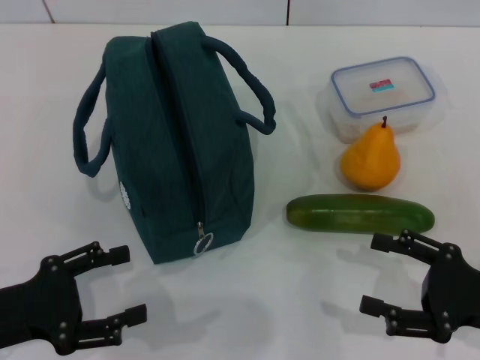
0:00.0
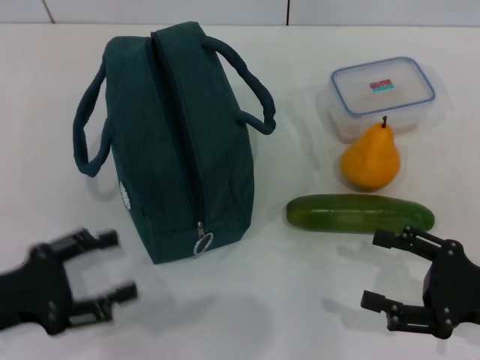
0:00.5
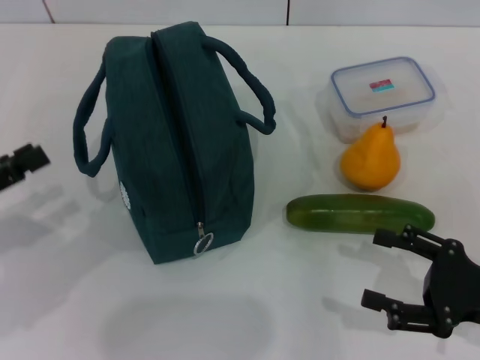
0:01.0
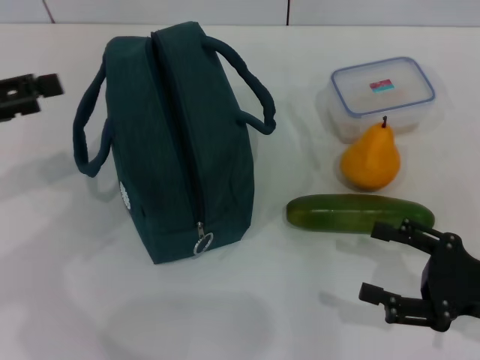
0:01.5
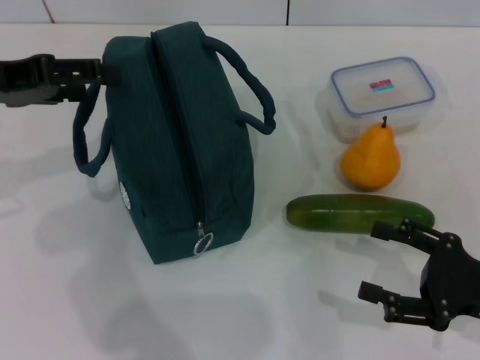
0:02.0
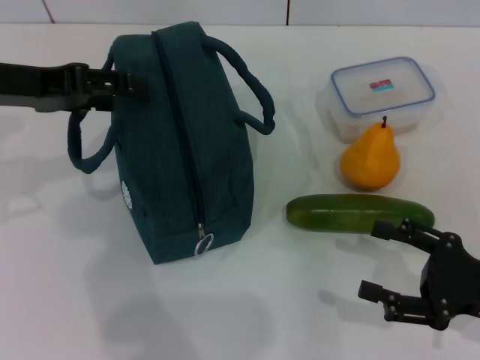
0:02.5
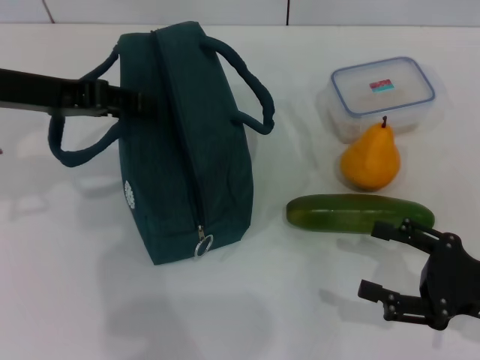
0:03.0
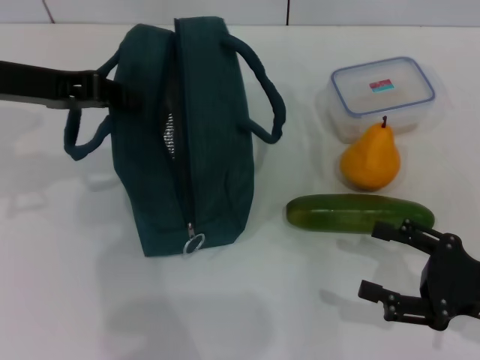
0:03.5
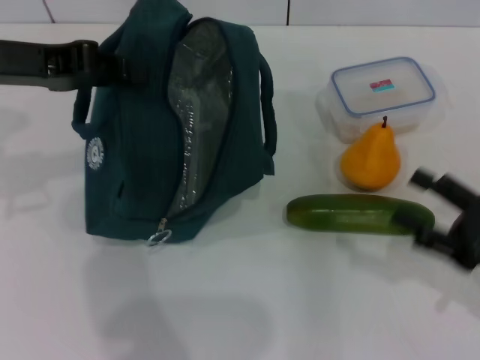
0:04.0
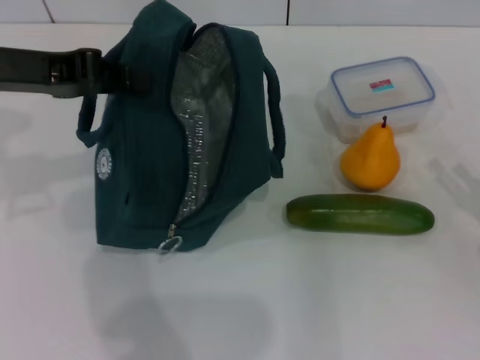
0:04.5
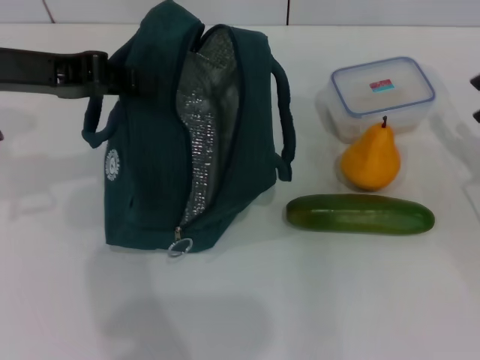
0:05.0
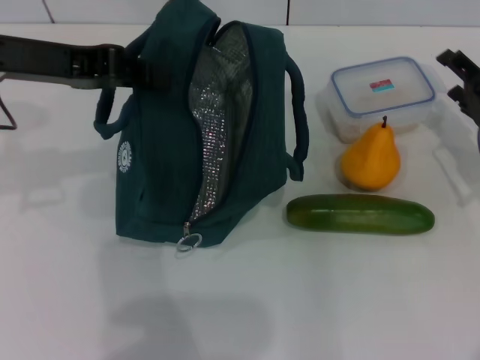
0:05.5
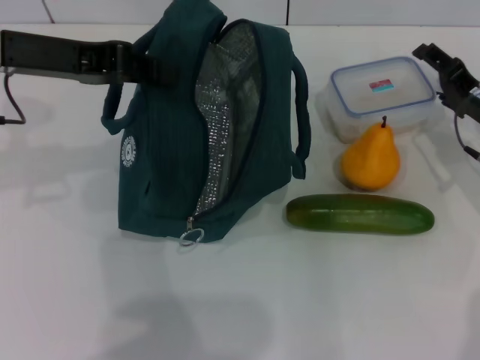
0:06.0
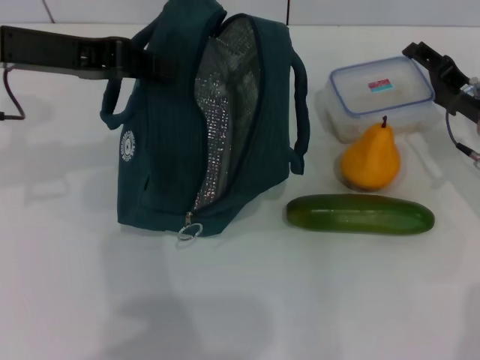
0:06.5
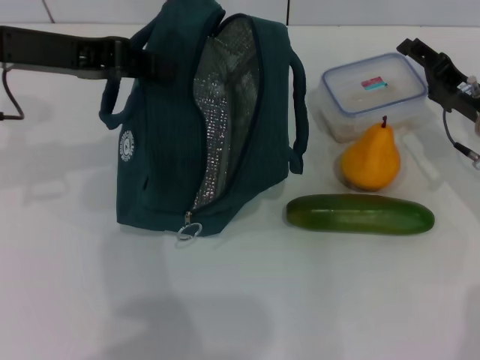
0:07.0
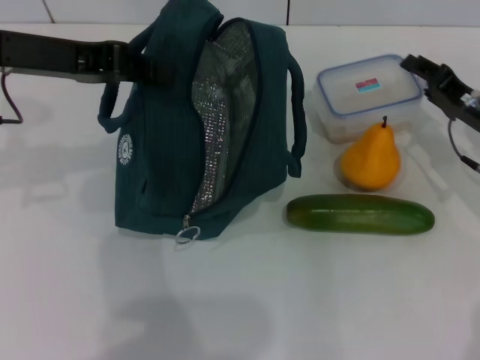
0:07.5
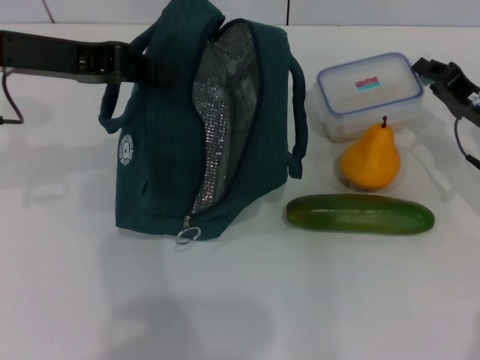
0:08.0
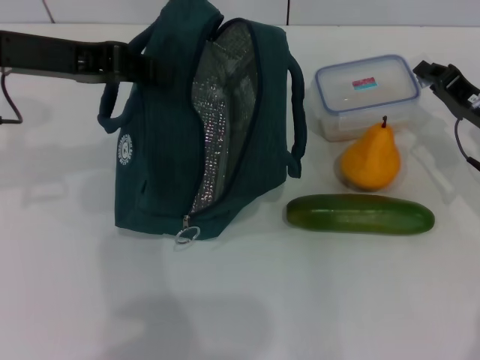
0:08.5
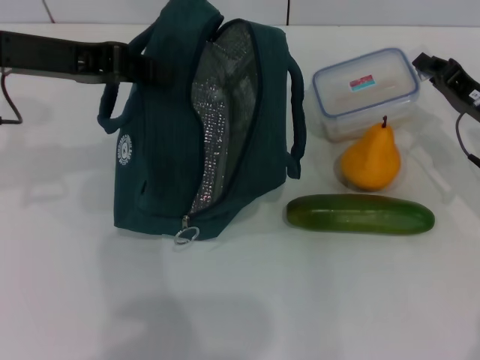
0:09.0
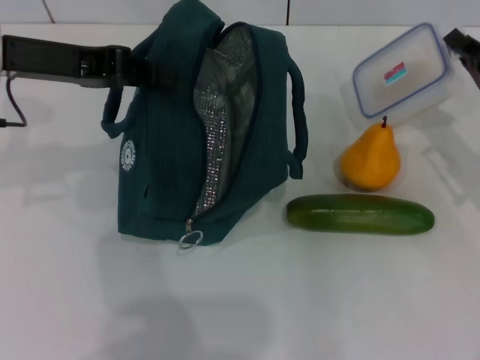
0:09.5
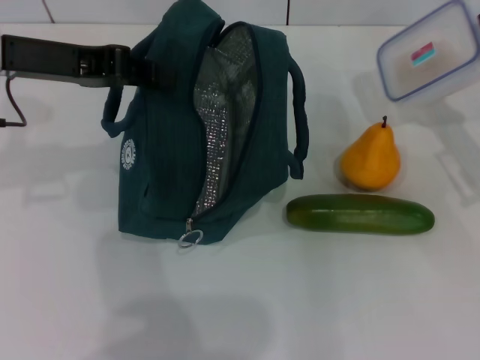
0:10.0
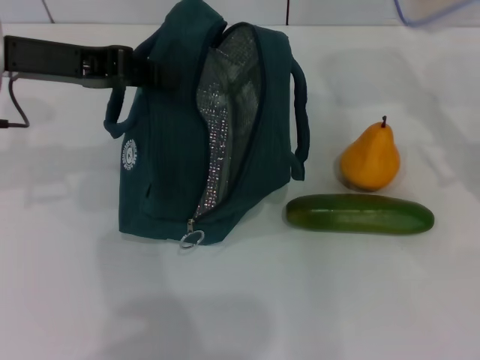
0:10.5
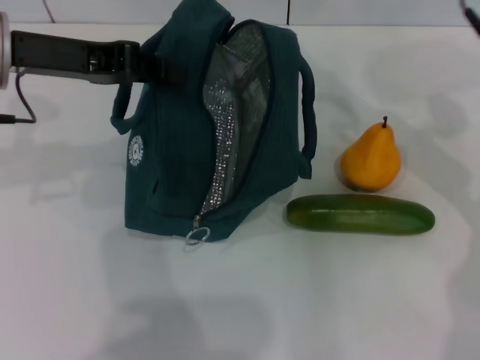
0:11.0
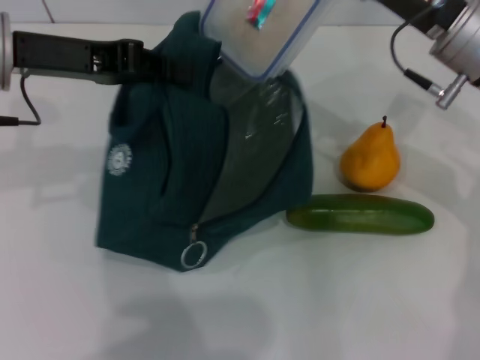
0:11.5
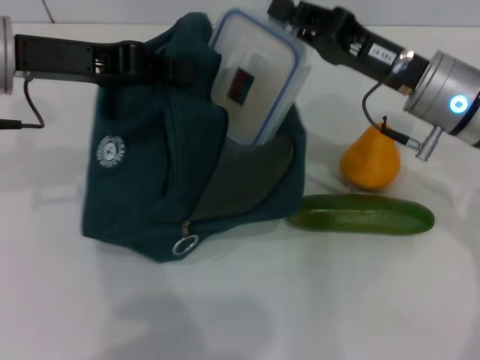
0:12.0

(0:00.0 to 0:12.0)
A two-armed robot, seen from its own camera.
Step, 0:00.0 - 0:03.0: Hold the lunch bag with your left hand.
Step, 0:03.5 - 0:08.5: Pick up the lunch box with your right hand.
0:00.0 - 0:02.0: The left gripper moves upward and forward, about 20 cm.
0:02.0 - 0:04.0: The left gripper closes up.
0:04.0 - 0:06.0: The right gripper goes some 15 cm forward.
0:06.0 - 0:08.0: The right gripper closes its fingers.
0:10.0 - 0:12.0: The right gripper shifts roughly 15 cm to the left and upward.

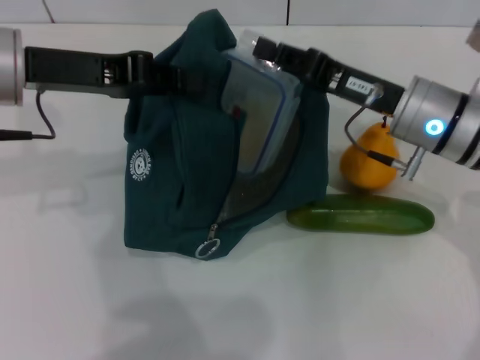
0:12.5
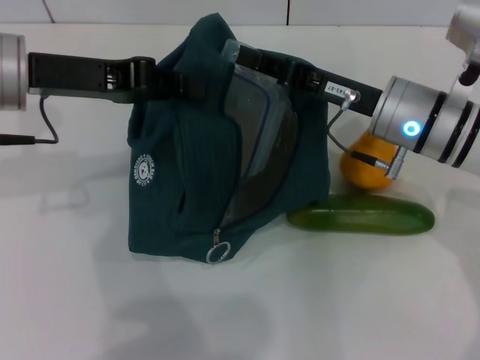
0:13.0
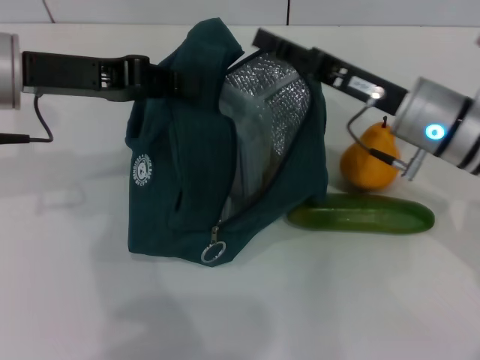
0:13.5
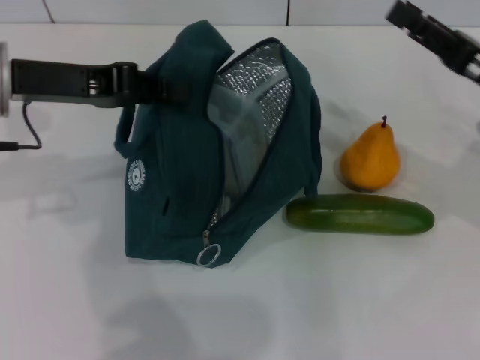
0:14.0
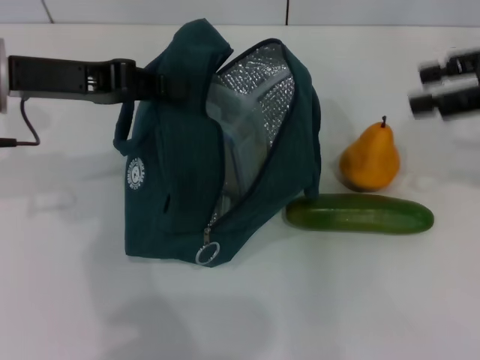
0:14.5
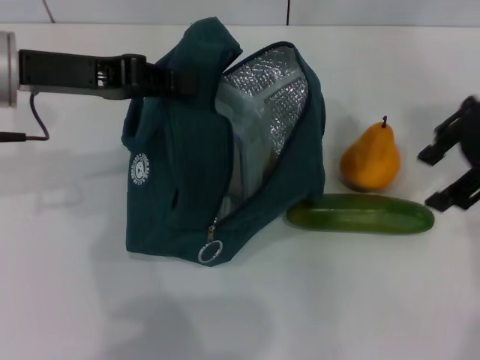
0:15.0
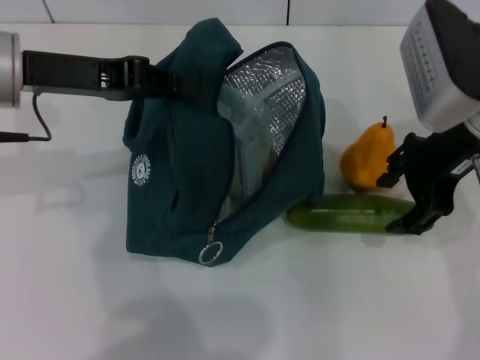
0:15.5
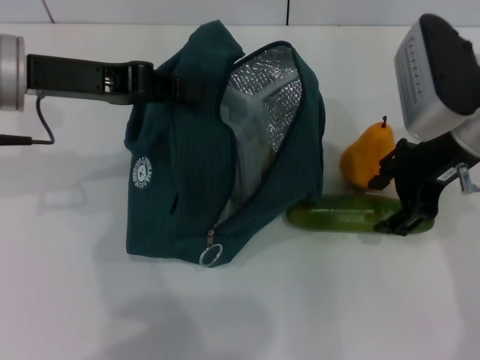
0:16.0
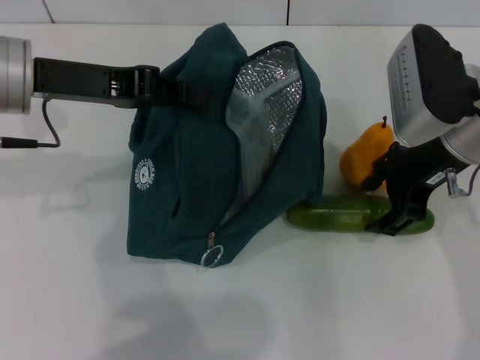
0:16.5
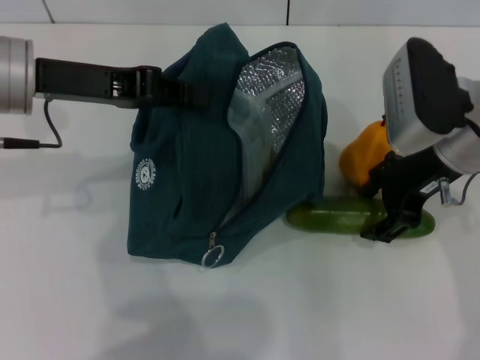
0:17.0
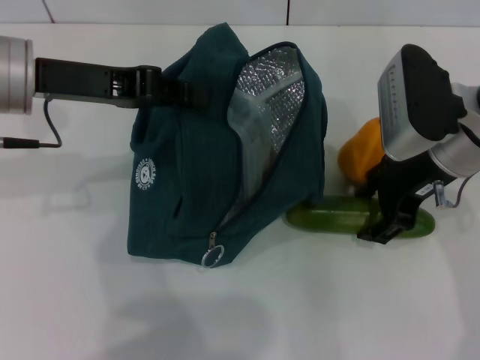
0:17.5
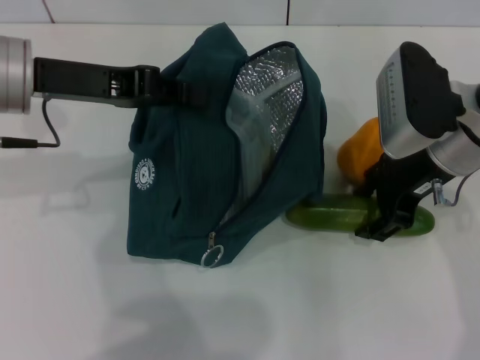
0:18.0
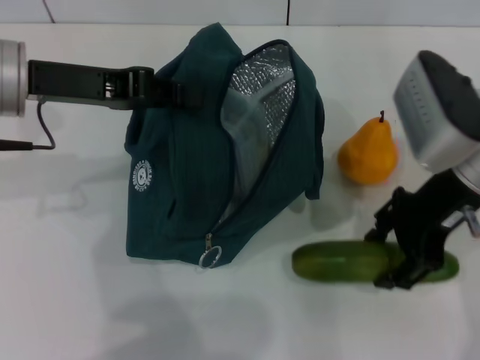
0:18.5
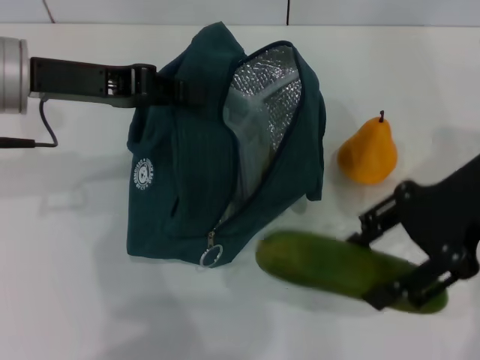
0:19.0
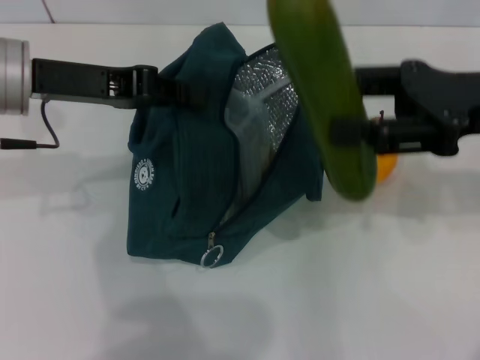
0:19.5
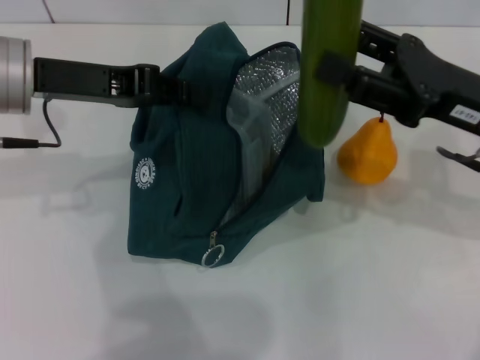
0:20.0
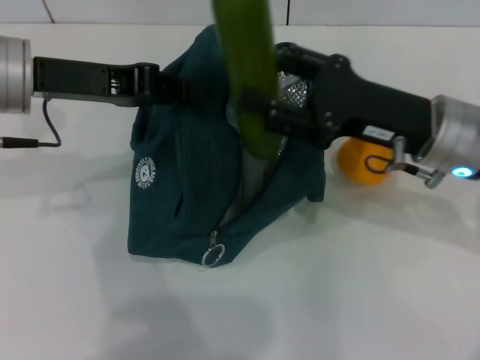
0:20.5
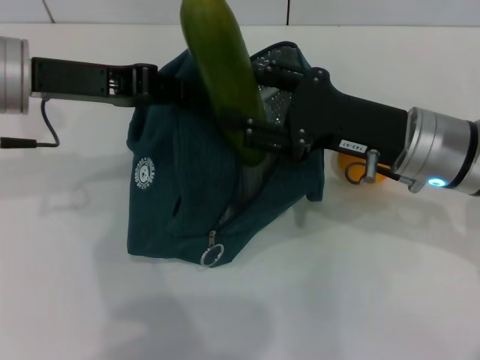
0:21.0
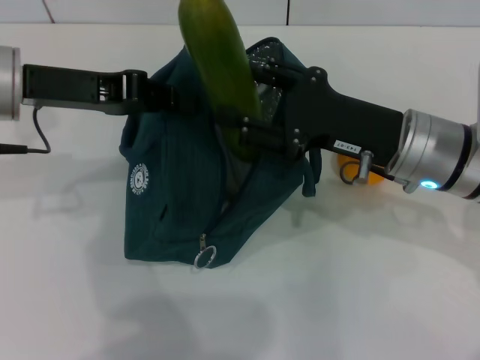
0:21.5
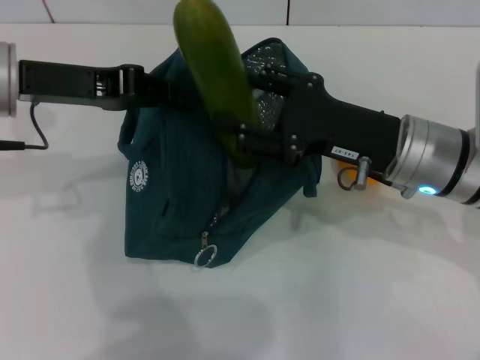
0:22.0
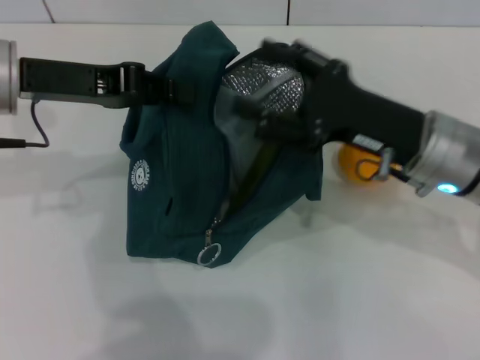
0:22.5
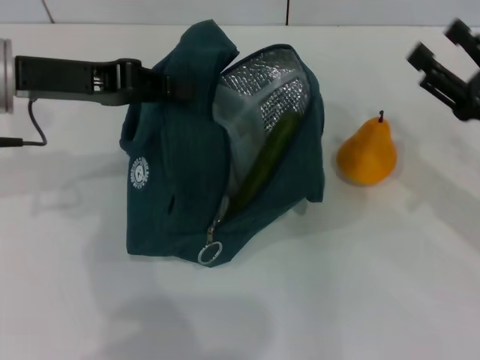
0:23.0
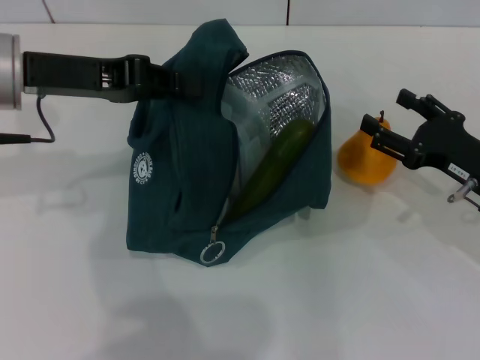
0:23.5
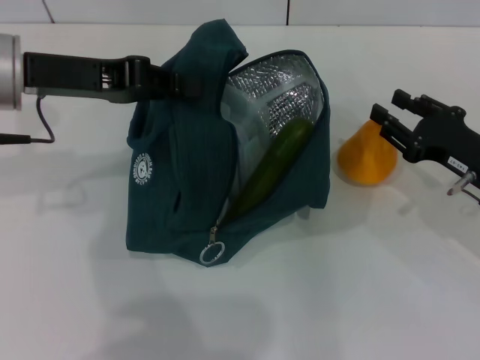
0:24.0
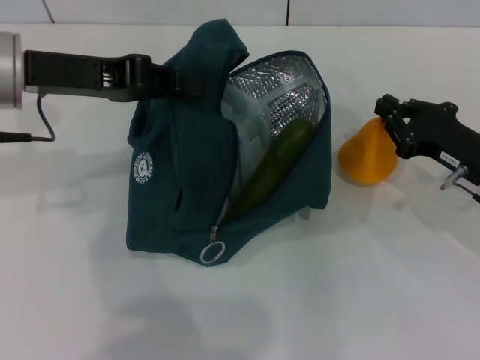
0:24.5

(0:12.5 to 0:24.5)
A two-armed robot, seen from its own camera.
Step, 0:13.5 - 0:18.0: Pick up the cucumber with your right hand.
Step, 0:18.5 - 0:22.0: Put the cucumber into the lunch bag with your right hand.
Step, 0:22.5 - 0:24.0: Grab the pear with your right hand.
0:12.5 - 0:14.5: The right gripper goes some 20 cm to the right and upward, and opens up.
0:14.5 - 0:16.5: The right gripper is displaced to the left and downward by roughly 15 cm.
0:16.5 - 0:18.5: There are only small adjustments of the grippers.
0:20.5 - 0:22.5: The grippers make only small movements.
0:22.5 - 0:24.5: The right gripper is displaced to the right and downward by approximately 10 cm, and closes up.

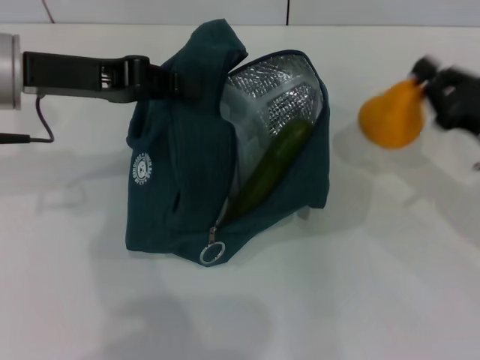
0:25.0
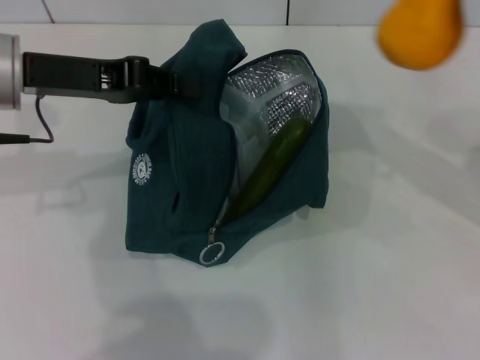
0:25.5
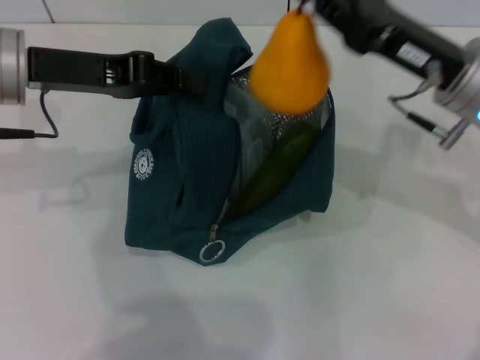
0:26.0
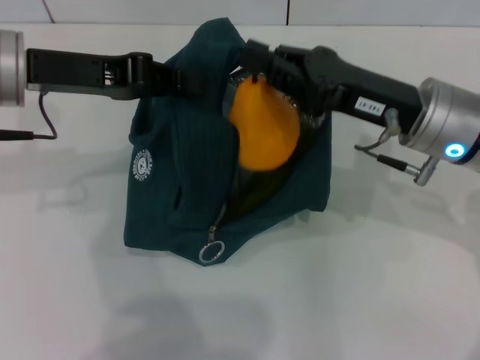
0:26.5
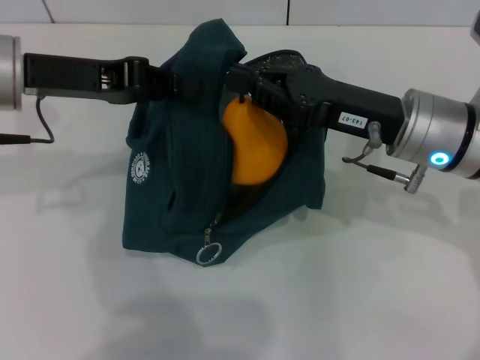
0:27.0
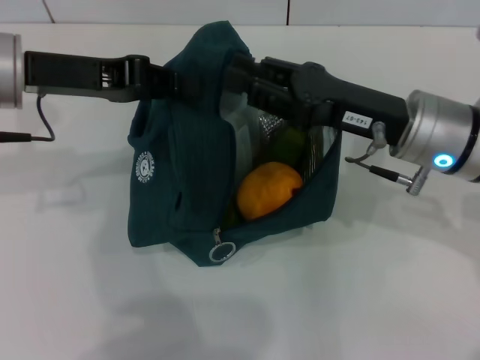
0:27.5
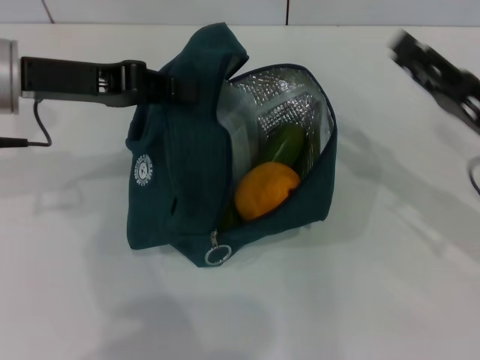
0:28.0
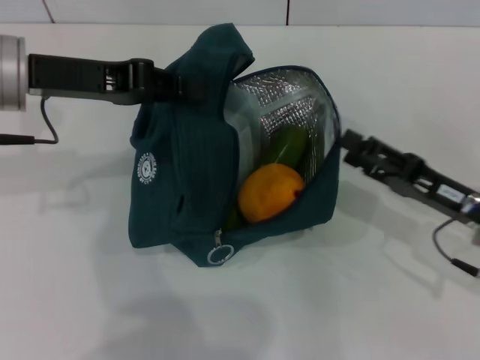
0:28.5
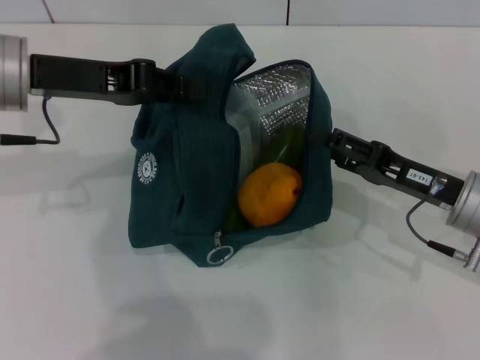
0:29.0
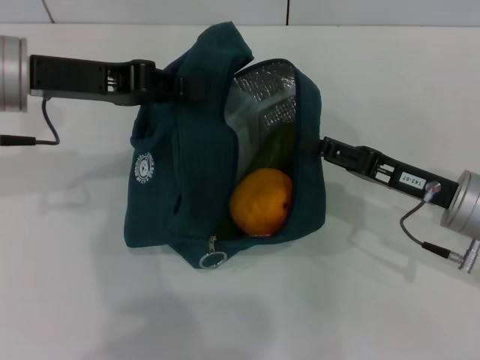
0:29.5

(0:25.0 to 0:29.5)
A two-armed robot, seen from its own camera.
0:25.0 - 0:27.0: The right gripper goes about 15 cm to the left and upward.
0:27.0 - 0:29.5: The right gripper is displaced downward and to the right by roughly 10 cm, and opens up.
